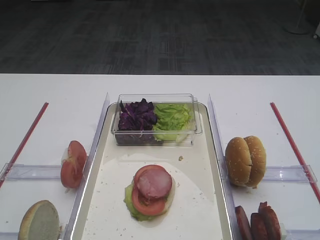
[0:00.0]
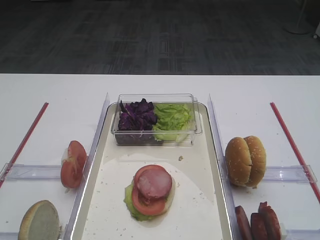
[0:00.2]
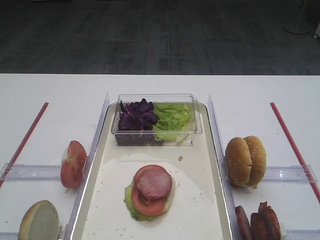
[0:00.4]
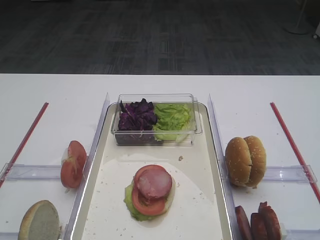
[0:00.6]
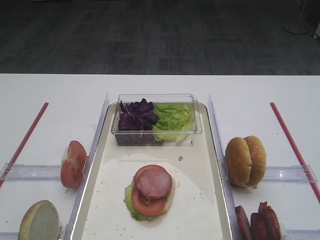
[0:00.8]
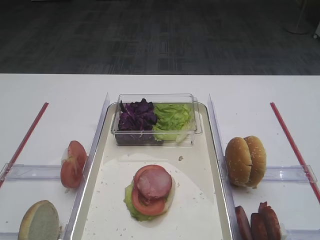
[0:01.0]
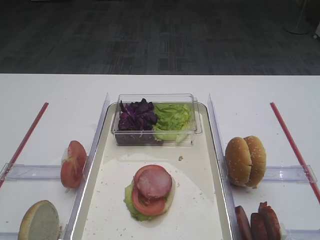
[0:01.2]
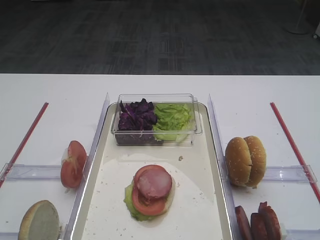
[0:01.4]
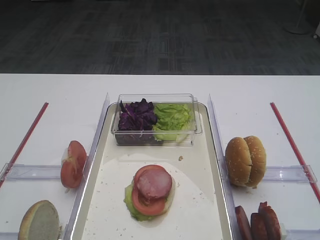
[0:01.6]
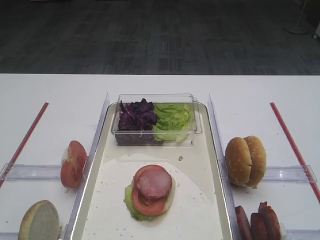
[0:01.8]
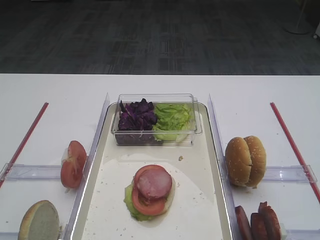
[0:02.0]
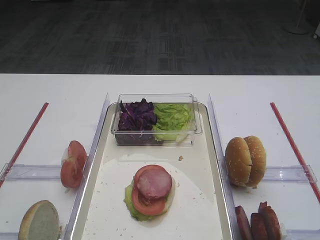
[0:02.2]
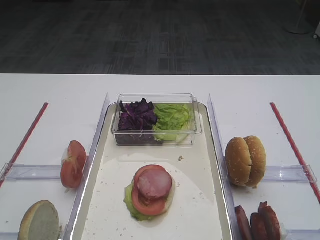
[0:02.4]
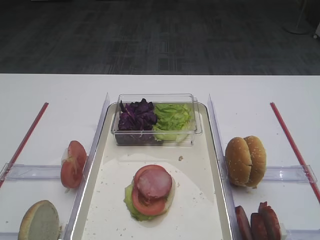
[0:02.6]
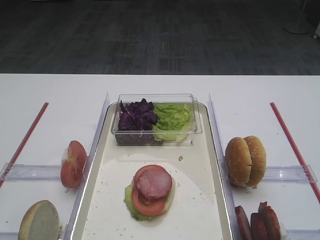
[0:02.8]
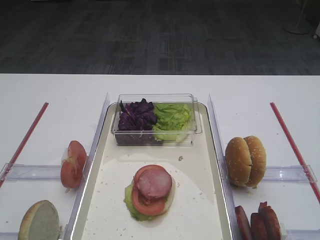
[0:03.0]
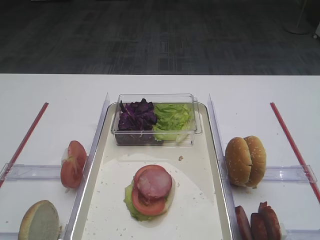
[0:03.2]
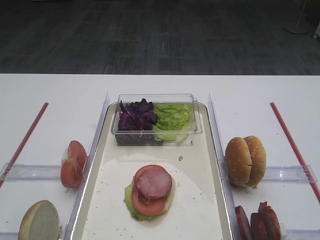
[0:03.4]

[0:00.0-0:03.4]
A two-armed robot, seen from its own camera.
0:00.0 to 0:03.4: Both grippers stay about where they are.

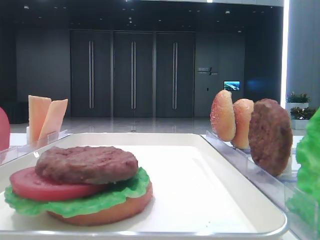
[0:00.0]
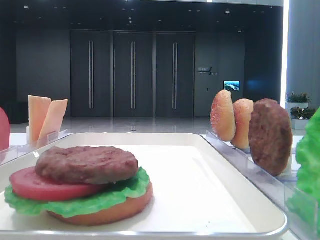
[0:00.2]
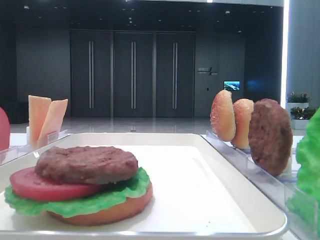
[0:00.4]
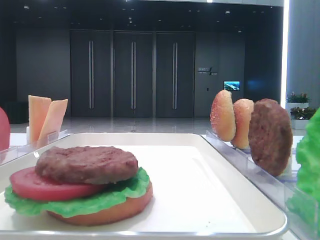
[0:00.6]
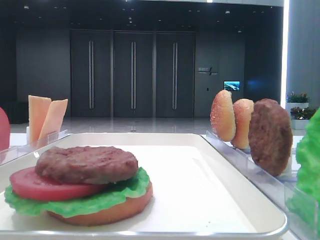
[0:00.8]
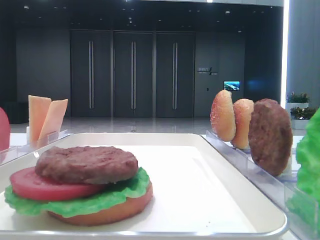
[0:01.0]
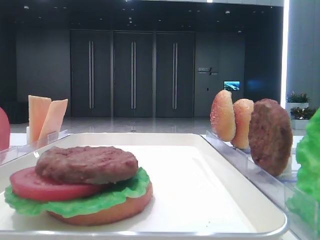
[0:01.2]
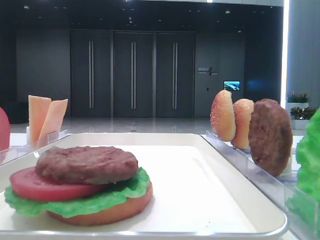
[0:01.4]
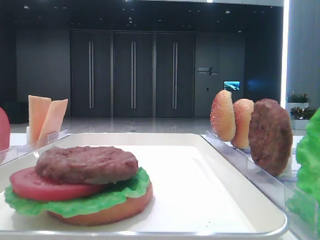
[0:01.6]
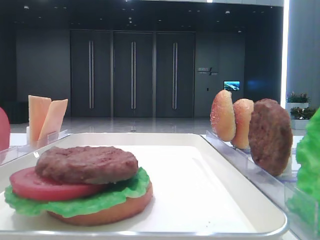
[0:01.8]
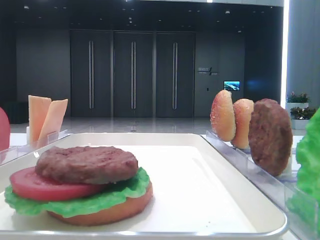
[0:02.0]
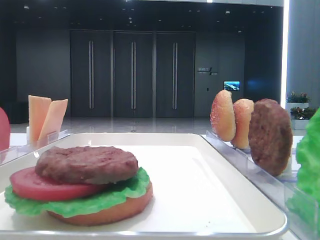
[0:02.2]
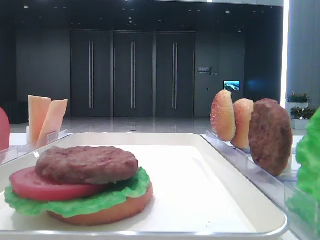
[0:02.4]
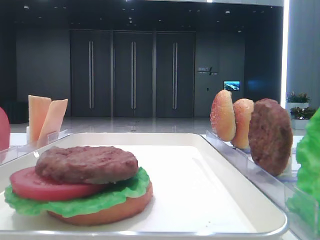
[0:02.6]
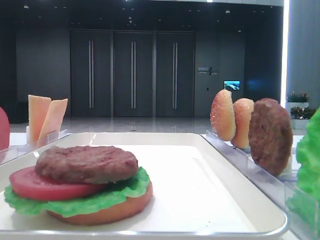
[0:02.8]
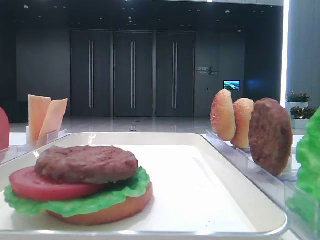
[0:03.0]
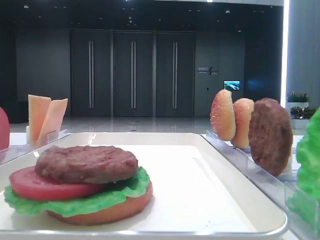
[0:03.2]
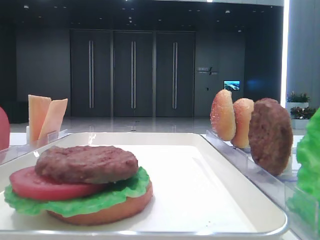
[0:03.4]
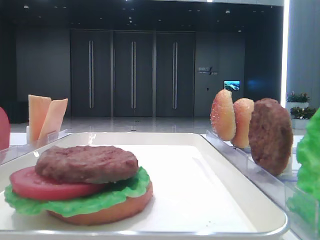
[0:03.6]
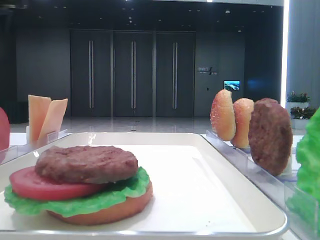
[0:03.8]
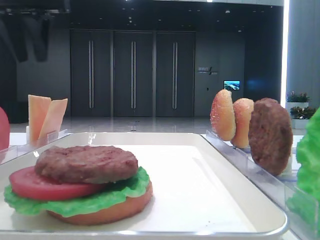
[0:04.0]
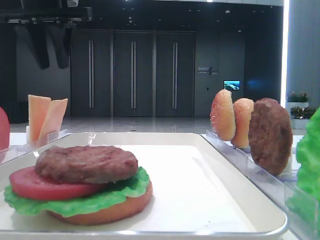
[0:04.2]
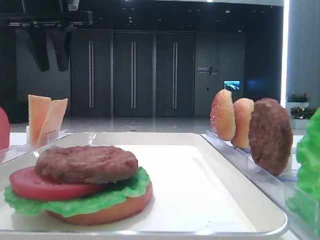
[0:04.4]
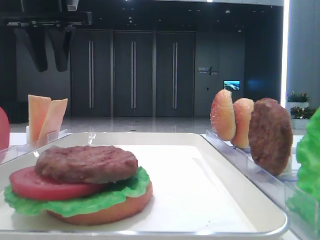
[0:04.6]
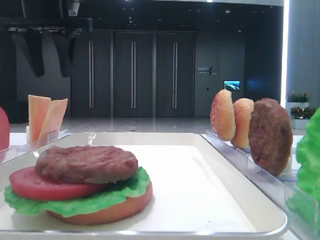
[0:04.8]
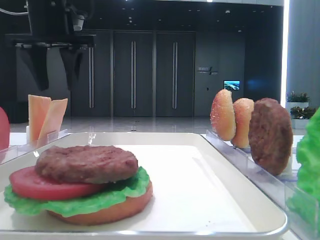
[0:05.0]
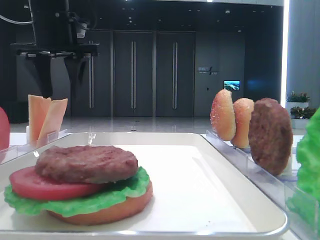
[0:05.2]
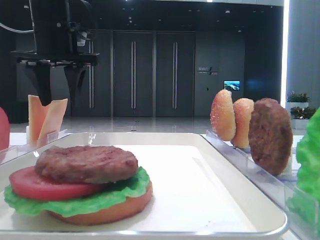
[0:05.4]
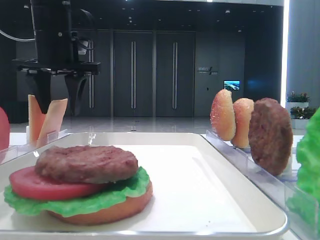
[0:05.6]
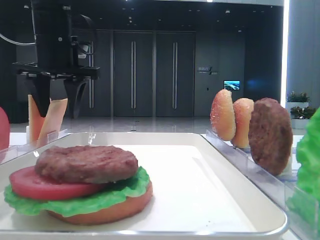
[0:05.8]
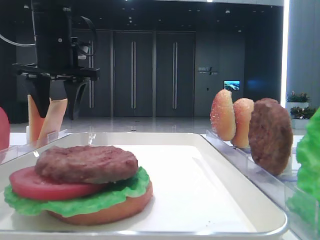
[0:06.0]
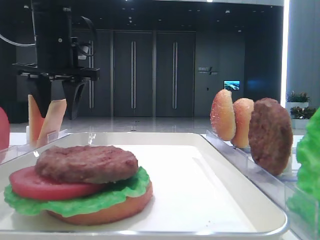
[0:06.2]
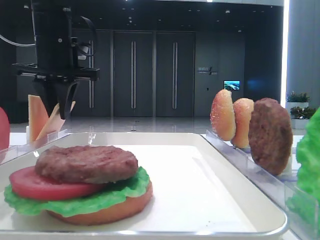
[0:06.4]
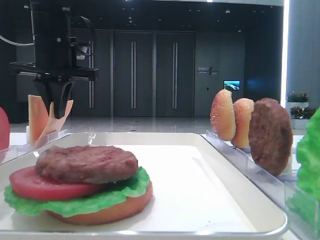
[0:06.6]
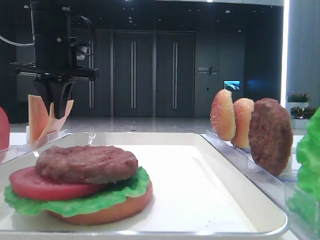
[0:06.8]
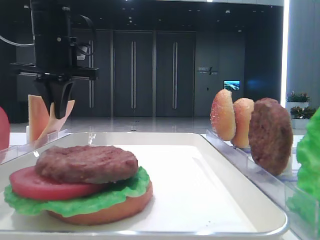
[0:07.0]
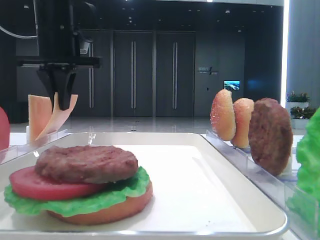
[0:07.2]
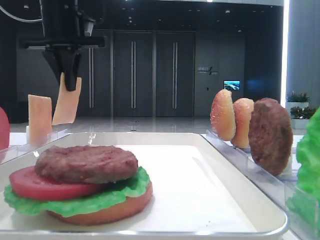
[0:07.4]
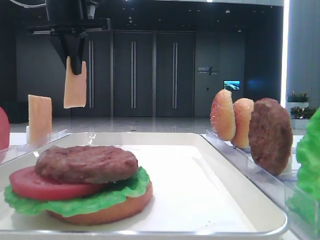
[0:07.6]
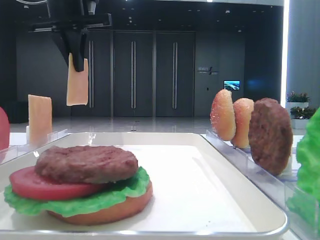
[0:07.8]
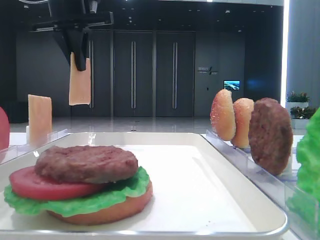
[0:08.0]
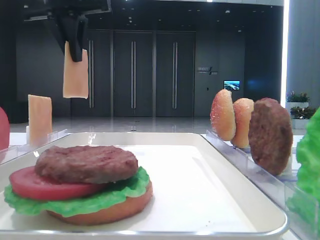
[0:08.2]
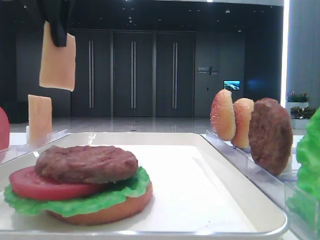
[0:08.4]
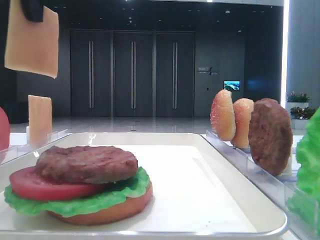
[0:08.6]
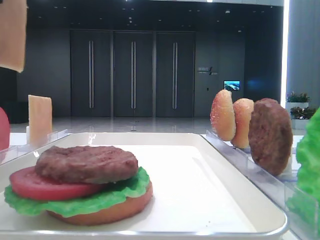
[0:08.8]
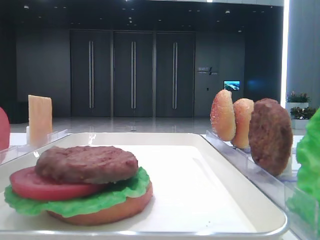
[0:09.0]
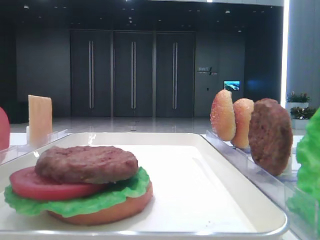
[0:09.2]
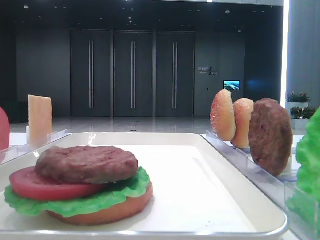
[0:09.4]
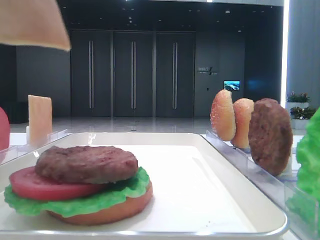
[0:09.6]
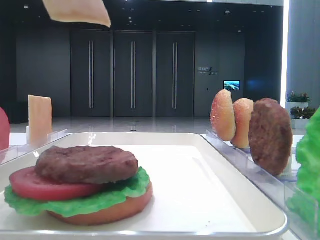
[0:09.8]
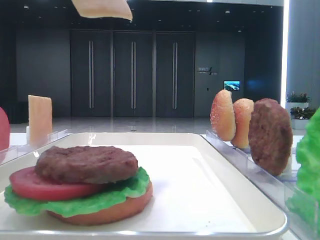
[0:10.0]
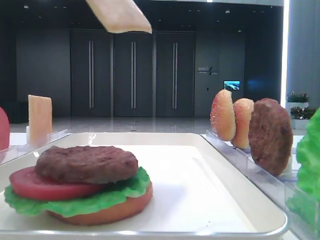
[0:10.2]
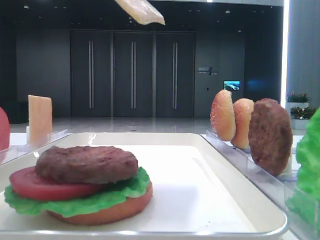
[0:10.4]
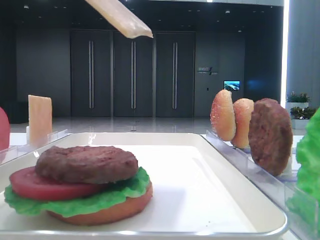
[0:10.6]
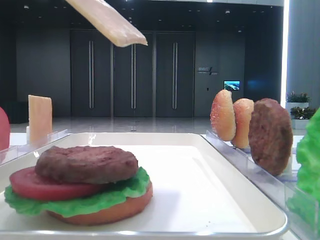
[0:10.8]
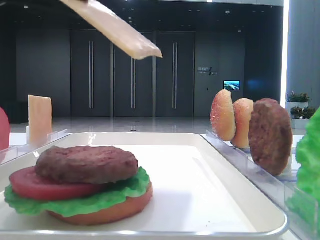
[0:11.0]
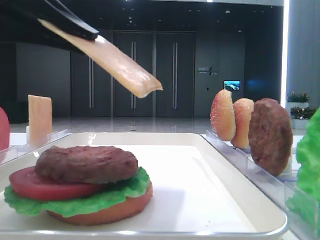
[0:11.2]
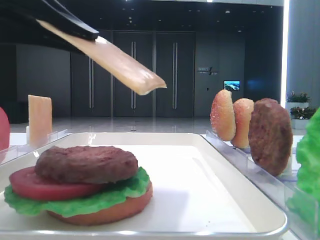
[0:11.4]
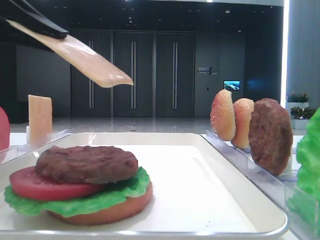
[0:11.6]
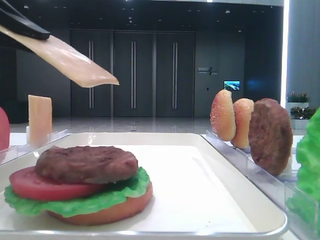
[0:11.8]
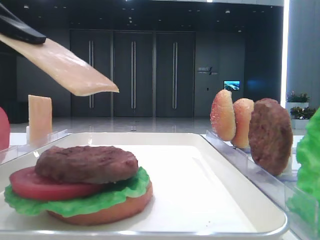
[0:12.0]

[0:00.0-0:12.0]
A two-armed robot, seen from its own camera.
Step, 0:00.0 to 0:06.8: Pick up the cheese slice with the left hand.
0:03.0 to 0:04.4: The left gripper travels to the right and forward by approximately 15 cm.
0:04.4 to 0:06.0: The left gripper heads downward, covering some 10 cm, and opens.
0:06.0 to 0:07.6: The left gripper goes approximately 10 cm upward, and closes up.
0:07.6 to 0:09.0: The left gripper goes about 20 cm backward.
0:09.0 to 0:10.4: The left gripper travels downward by about 5 cm.
0:10.4 to 0:12.0: The left gripper is displaced downward and to the left by approximately 10 cm.

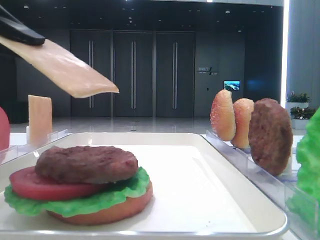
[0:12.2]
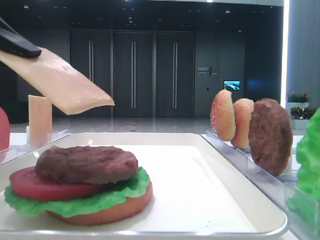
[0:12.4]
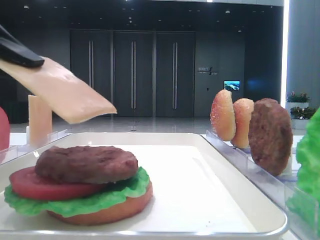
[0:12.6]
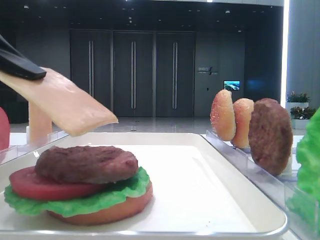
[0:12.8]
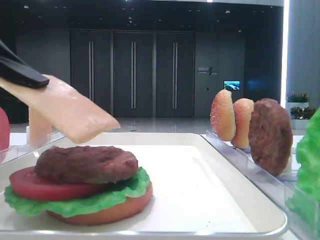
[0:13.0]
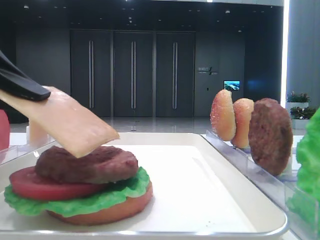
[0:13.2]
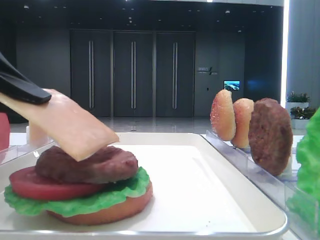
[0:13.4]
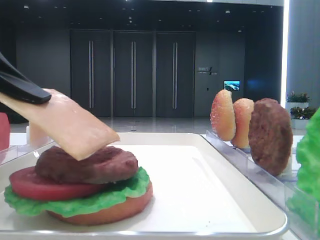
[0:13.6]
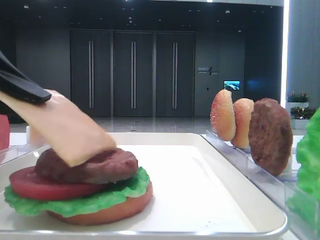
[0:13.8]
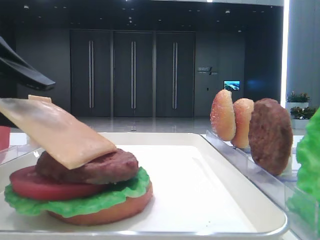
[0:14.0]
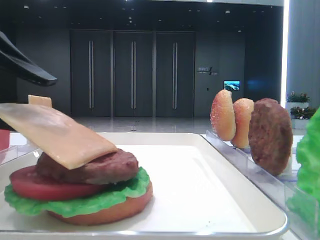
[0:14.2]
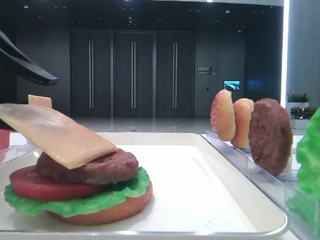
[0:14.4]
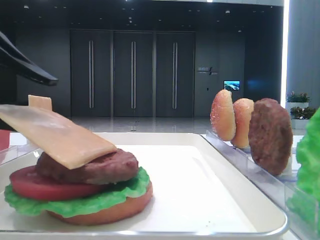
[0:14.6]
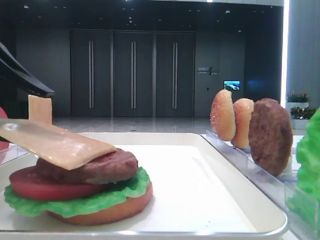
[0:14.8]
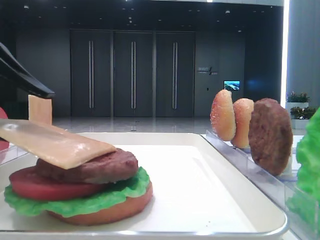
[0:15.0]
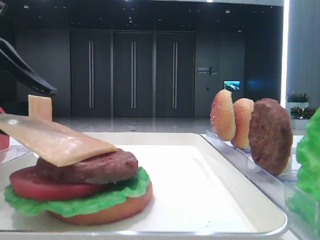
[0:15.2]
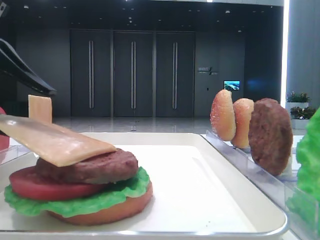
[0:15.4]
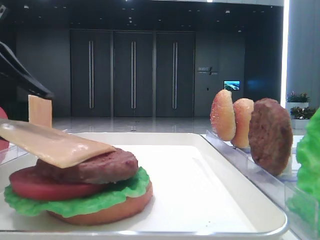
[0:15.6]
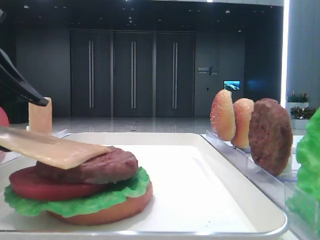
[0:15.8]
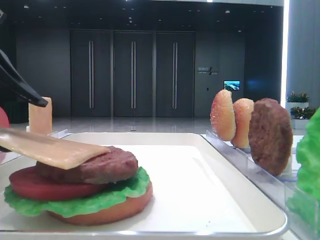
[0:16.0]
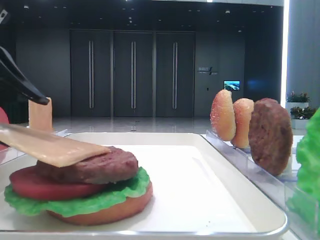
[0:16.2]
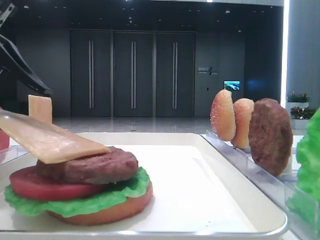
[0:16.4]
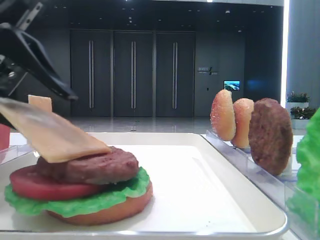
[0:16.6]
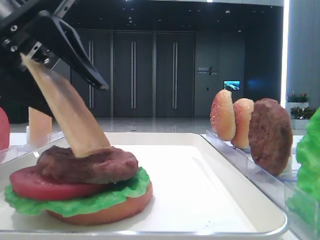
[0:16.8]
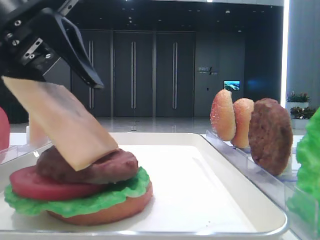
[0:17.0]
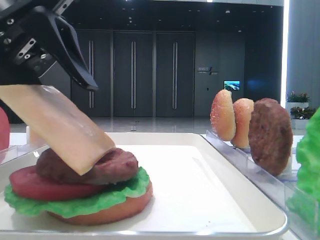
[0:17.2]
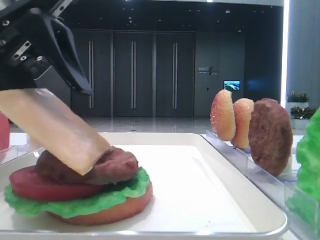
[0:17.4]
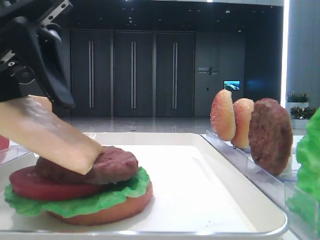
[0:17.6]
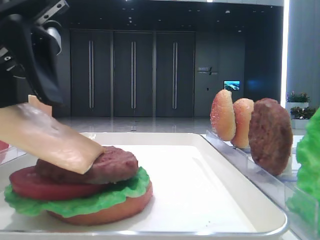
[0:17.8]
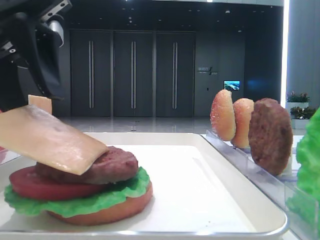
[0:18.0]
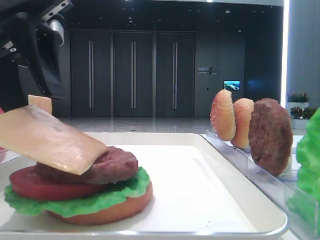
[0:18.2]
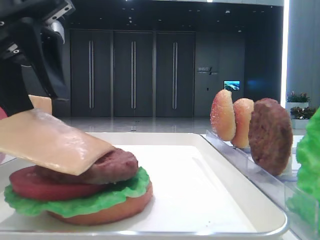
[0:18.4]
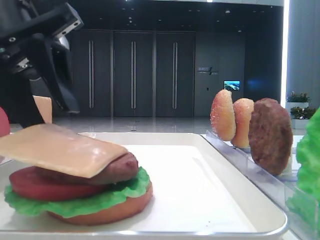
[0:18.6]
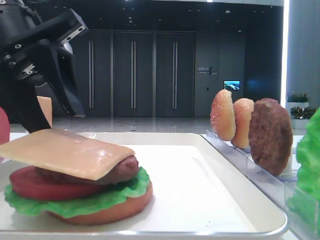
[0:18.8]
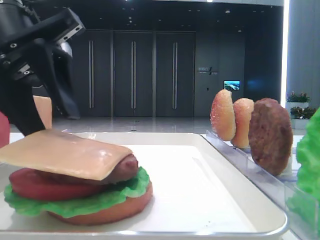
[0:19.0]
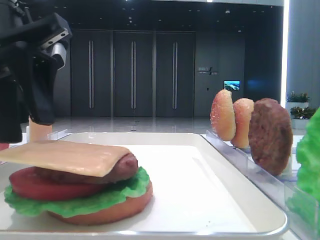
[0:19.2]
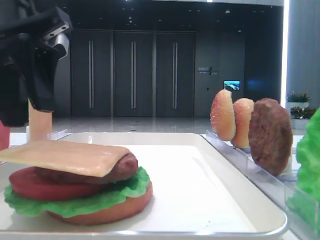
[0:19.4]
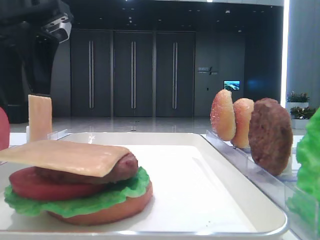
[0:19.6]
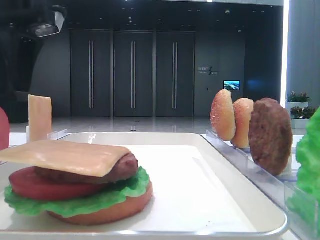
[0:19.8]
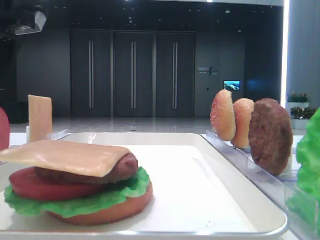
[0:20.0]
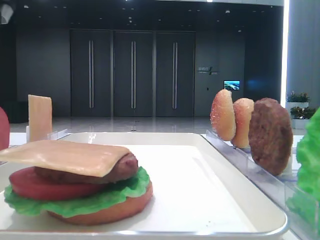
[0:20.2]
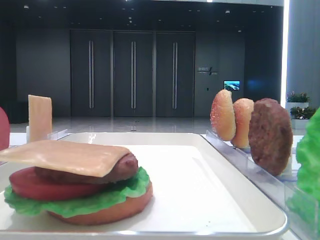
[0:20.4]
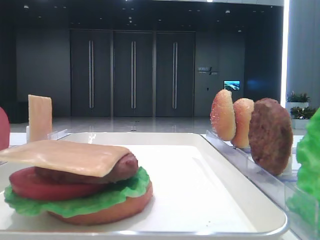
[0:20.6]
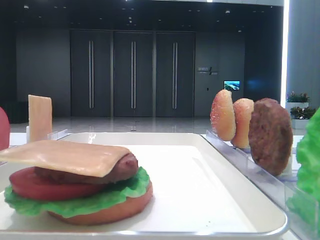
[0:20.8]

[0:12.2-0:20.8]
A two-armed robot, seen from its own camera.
Step, 0:12.2 to 0:19.0: Place the cheese slice on the patty with the left hand.
0:12.2 to 0:13.6: The grippers move only a little.
0:13.6 to 0:15.0: The left gripper opens up.
0:15.0 to 0:16.6: The grippers make only small movements.
0:16.6 to 0:18.0: The left gripper moves roughly 5 cm.
0:18.0 to 0:19.4: The grippers make only small movements.
0:19.4 to 0:20.8: The left gripper is displaced to the left and upward by about 20 cm.
